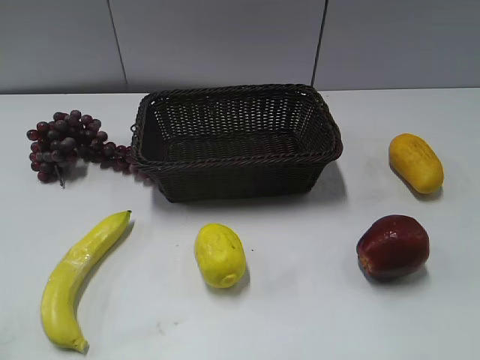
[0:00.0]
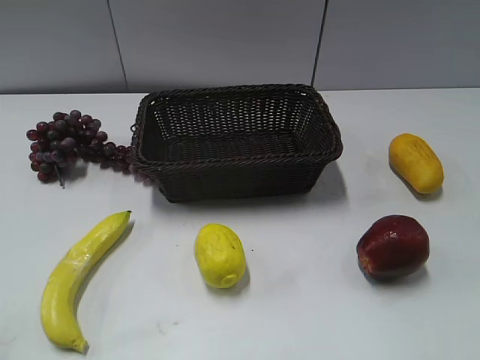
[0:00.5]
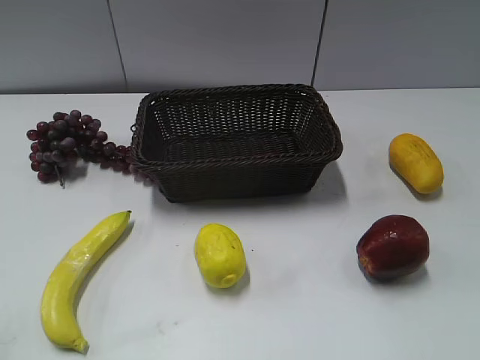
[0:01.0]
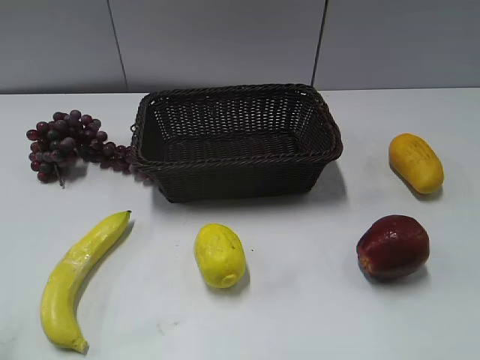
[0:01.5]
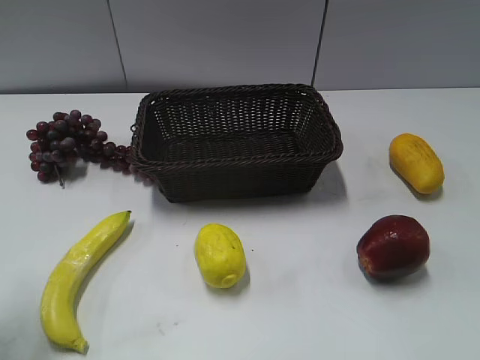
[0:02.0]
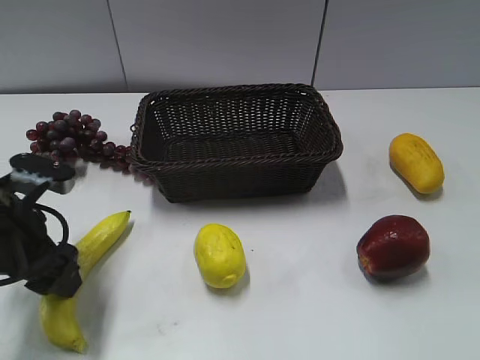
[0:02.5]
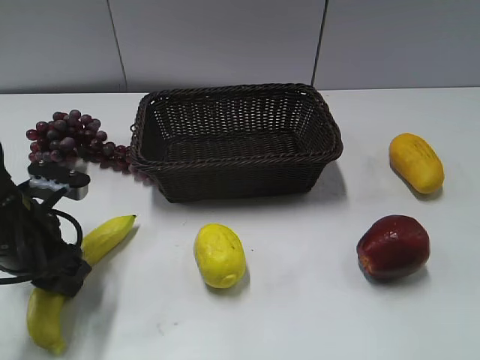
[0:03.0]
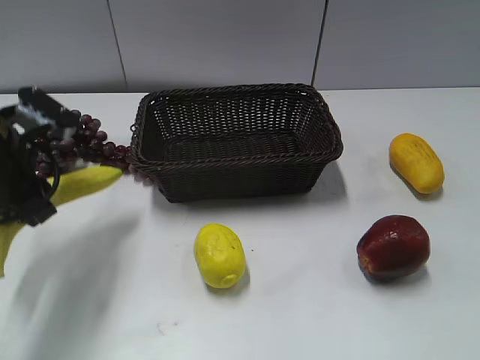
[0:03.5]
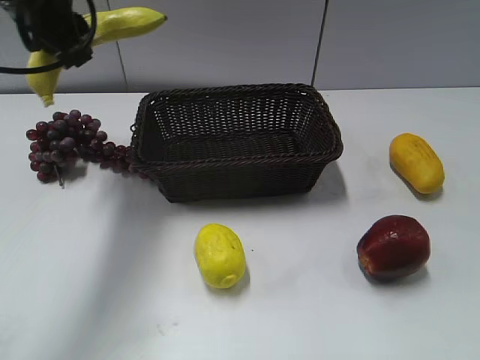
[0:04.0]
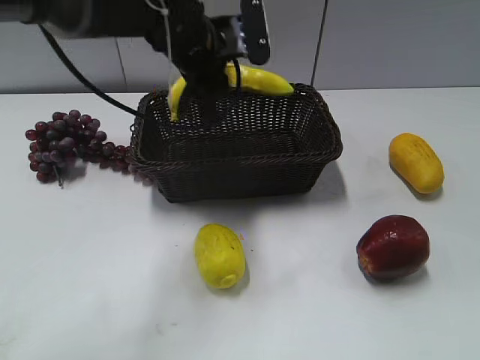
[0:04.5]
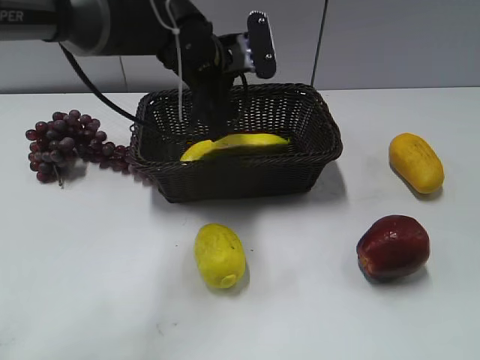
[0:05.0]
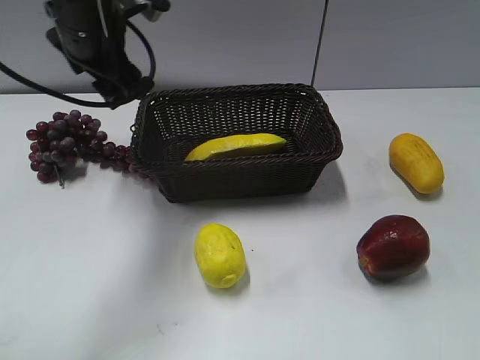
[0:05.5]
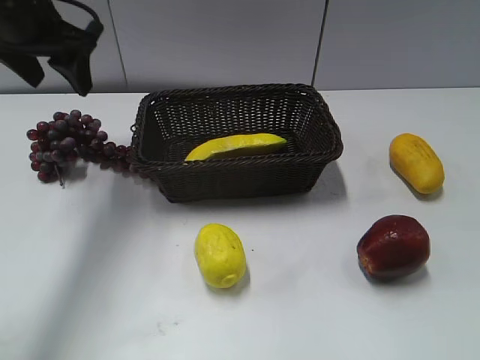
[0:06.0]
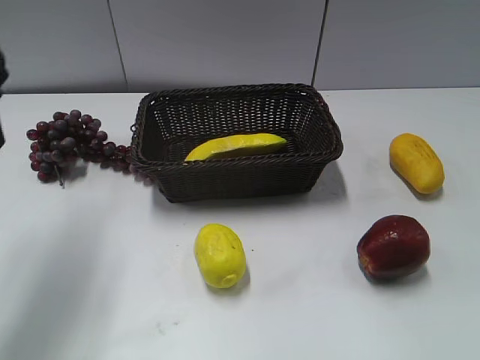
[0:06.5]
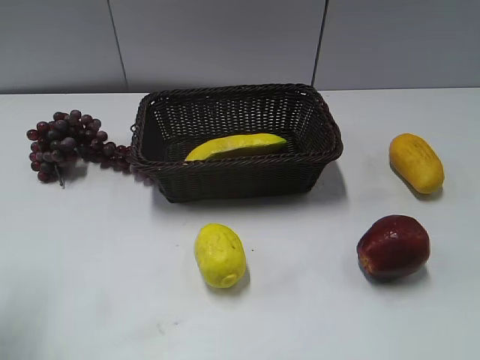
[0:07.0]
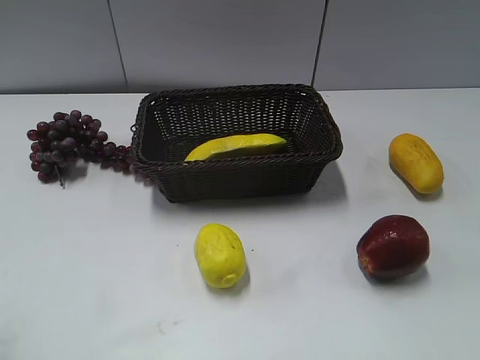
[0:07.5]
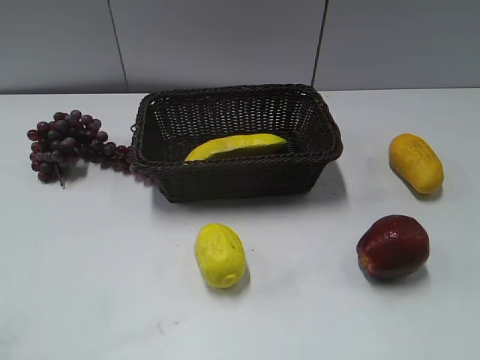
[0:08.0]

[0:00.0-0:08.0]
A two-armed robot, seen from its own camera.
Step, 0:02.0 to 0:03.0: Grasp the banana with left gripper.
Step, 0:03.5 to 0:05.0: Place the banana in the basket with left gripper.
0:02.0 to 0:04.0: The left gripper heads forward and to the right, covering roughly 25 cm, and closes.
0:04.0 to 0:06.0: The left gripper moves about 15 cm to the right and comes back, and opens its fingers.
0:06.0 to 0:08.0: The left gripper heads backward, covering about 35 cm.
